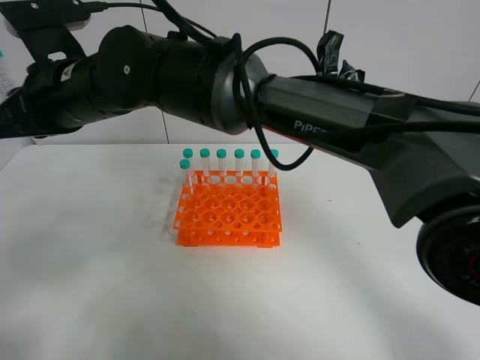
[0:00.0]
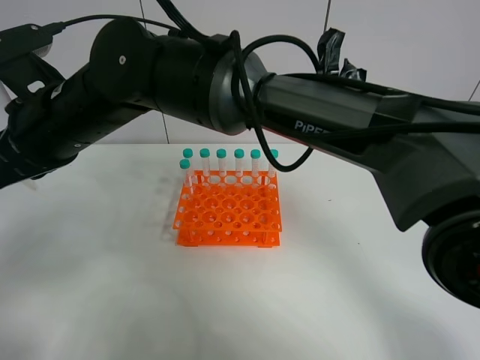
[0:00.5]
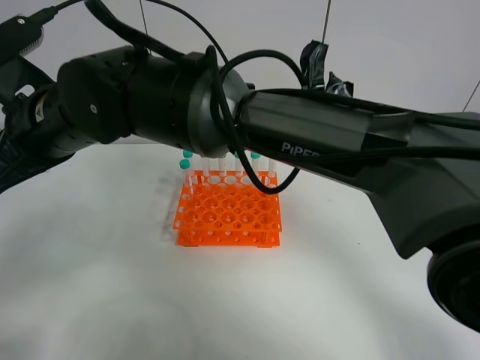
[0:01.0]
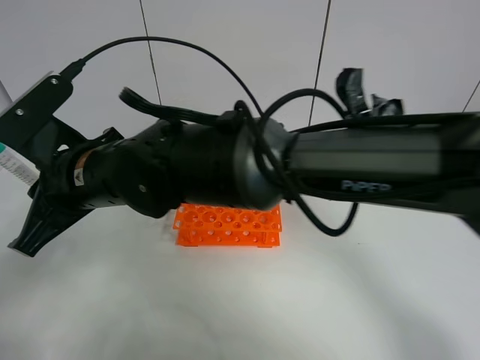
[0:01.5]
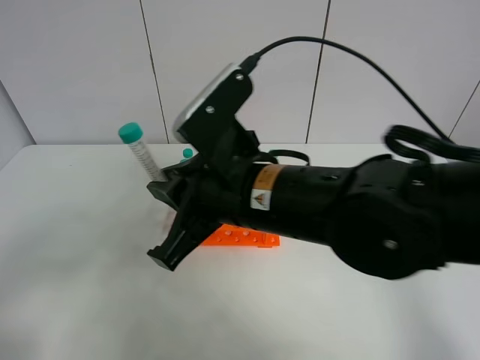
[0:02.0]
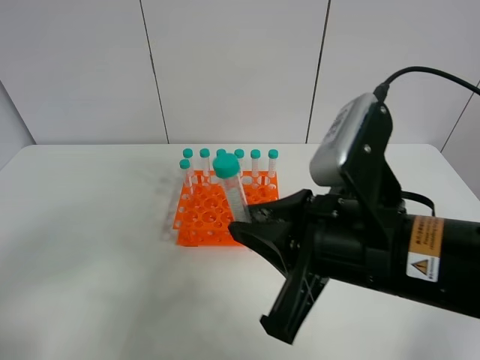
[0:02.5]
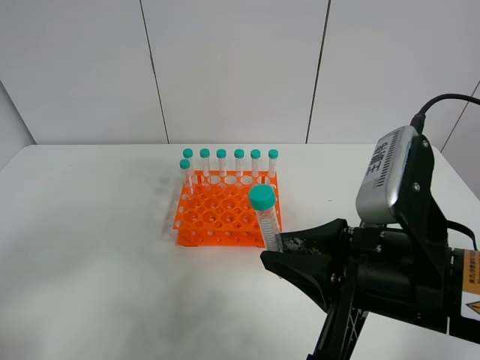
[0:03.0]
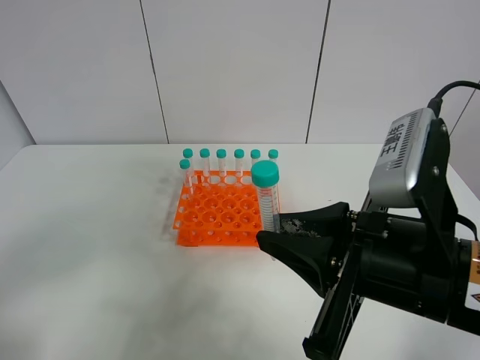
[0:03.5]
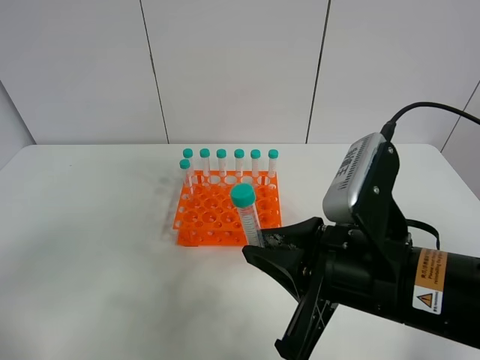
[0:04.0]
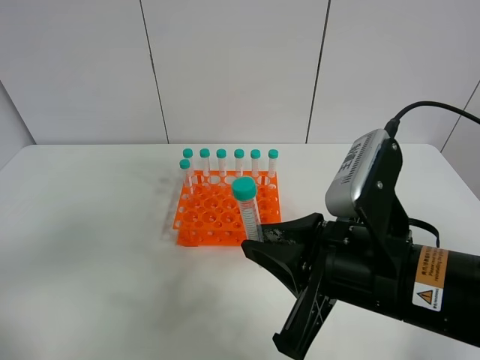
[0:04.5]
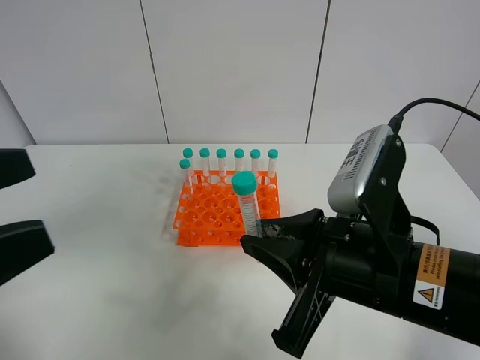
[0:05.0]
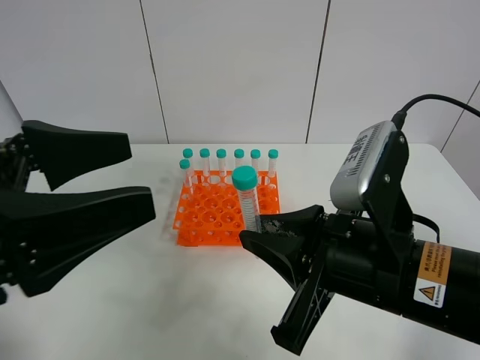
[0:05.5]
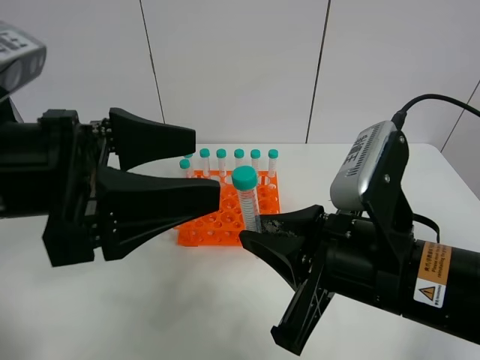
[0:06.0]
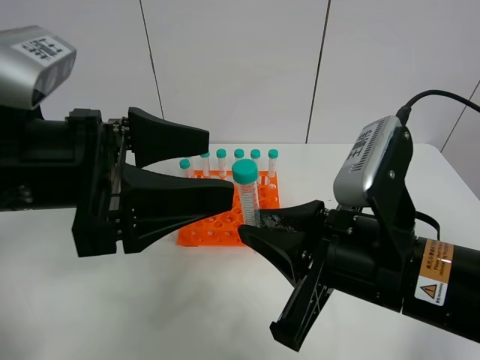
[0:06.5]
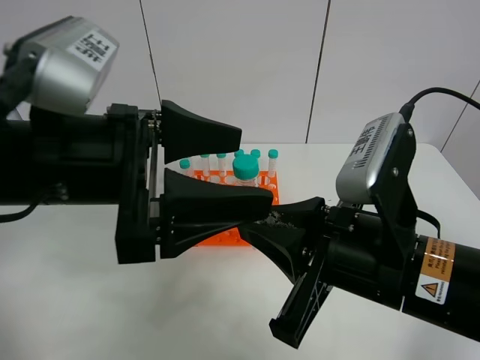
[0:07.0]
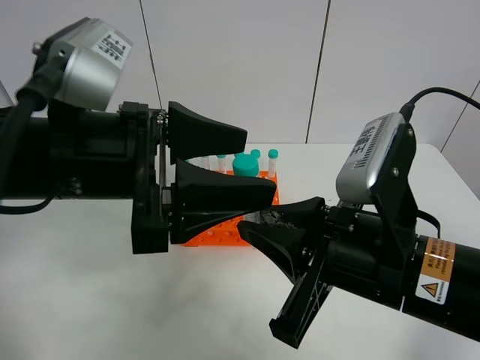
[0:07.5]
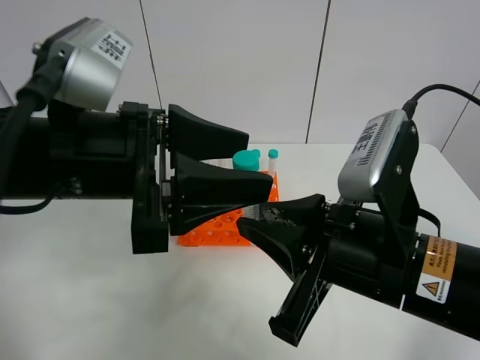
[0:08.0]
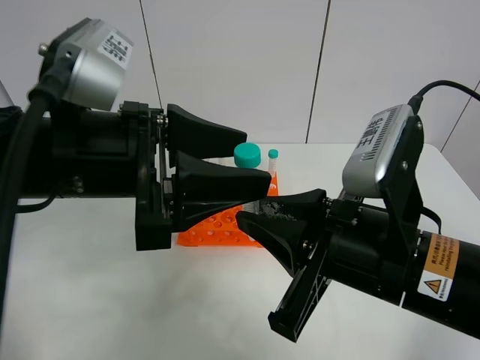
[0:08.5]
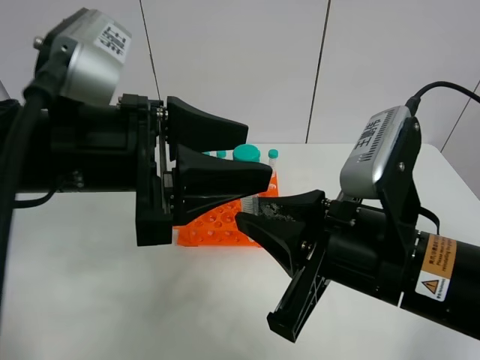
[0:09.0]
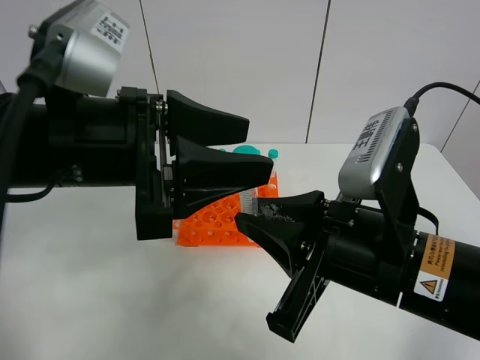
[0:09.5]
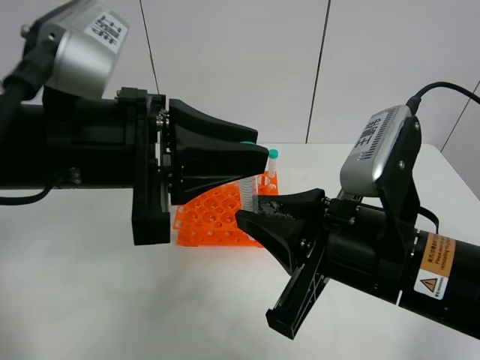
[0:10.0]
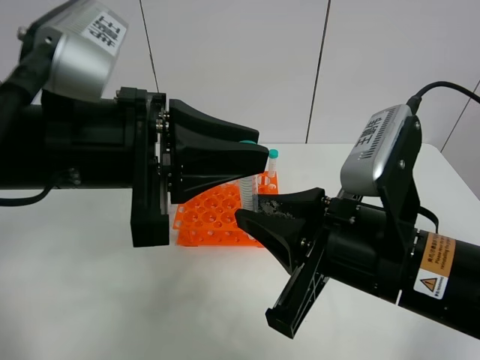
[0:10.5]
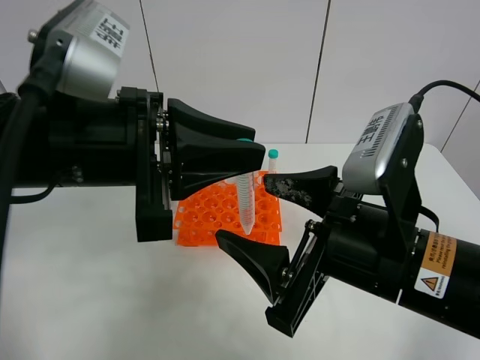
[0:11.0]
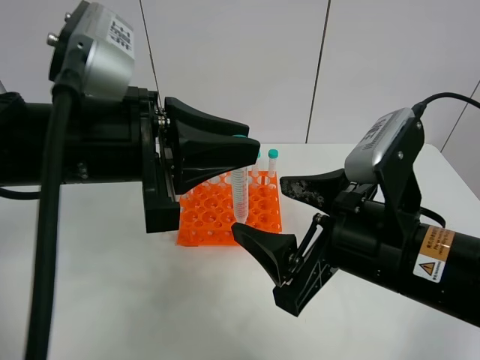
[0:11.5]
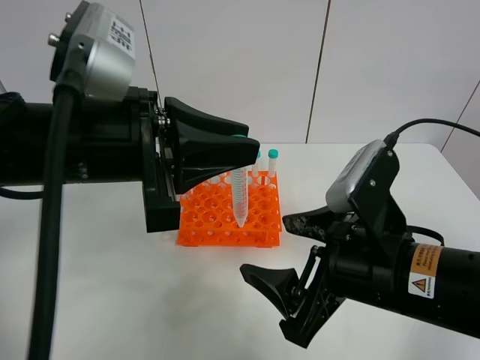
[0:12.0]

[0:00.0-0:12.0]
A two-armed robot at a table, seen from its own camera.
Task of the whole recording: Put the test tube on the table back onto the test tube rack.
0:00.0 to 0:02.0: The right gripper moves to the right and backward, roughly 20 cm.
0:02.0 to 0:04.0: The right gripper shifts roughly 10 cm to the right and backward.
0:04.0 to 0:06.0: The left gripper shifts approximately 20 cm forward and to the right.
0:08.0 to 0:10.0: The left gripper closes its fingers.
0:10.0 to 0:12.0: The right gripper opens its fingers.

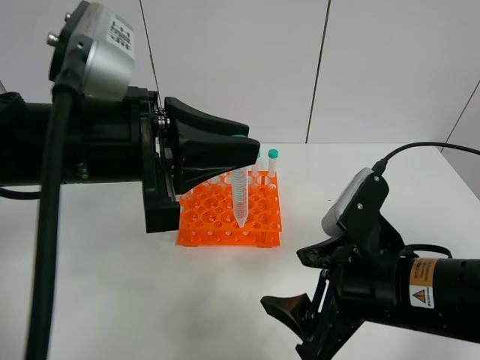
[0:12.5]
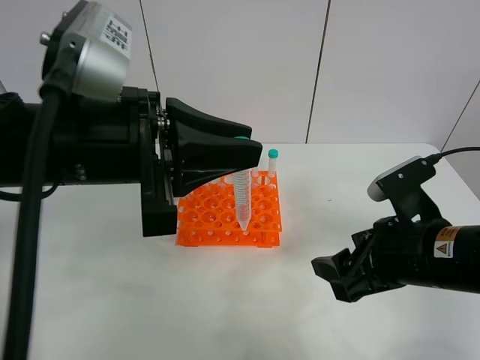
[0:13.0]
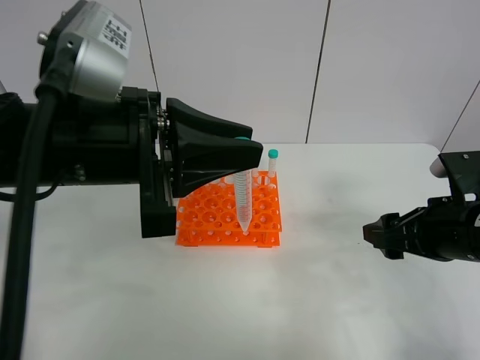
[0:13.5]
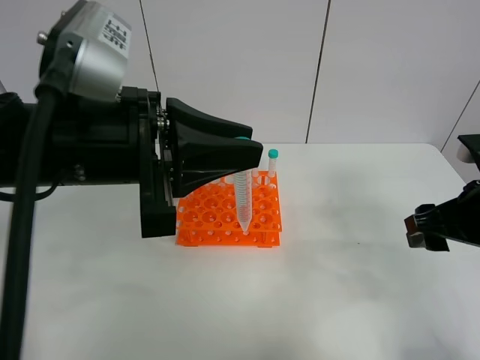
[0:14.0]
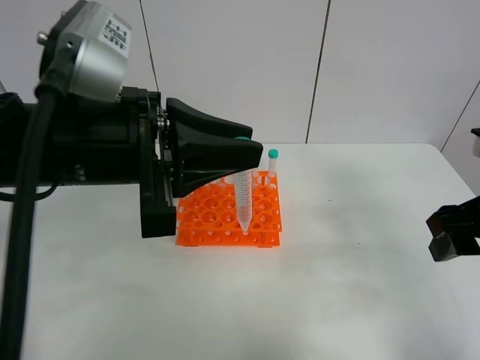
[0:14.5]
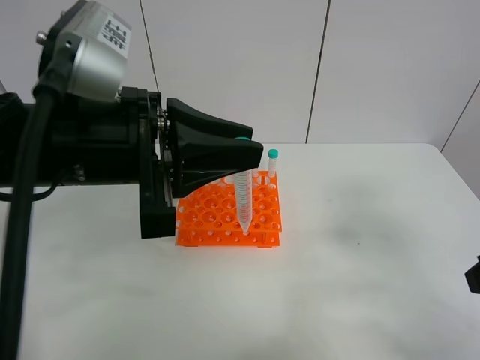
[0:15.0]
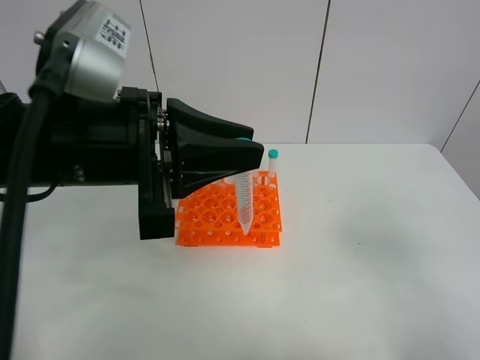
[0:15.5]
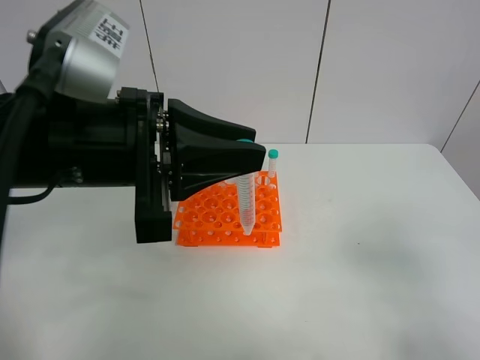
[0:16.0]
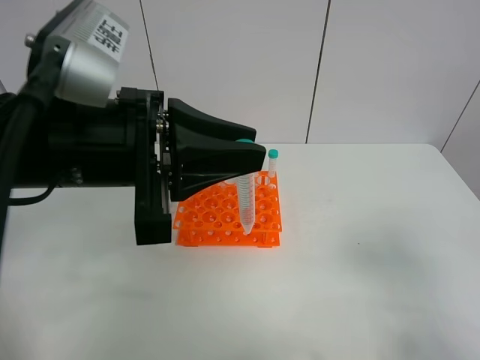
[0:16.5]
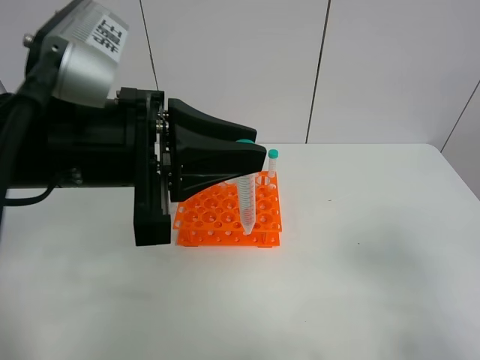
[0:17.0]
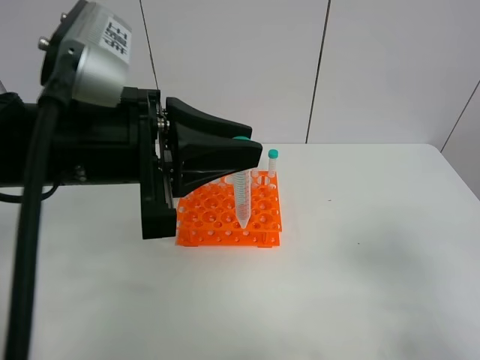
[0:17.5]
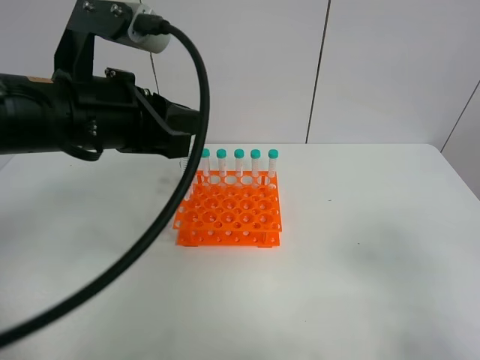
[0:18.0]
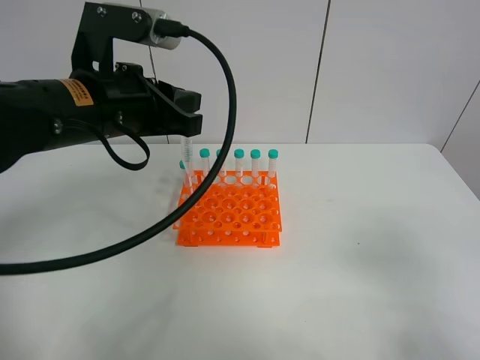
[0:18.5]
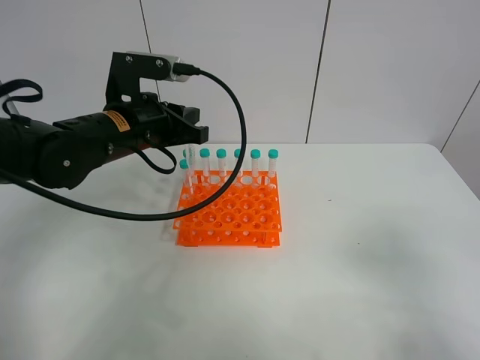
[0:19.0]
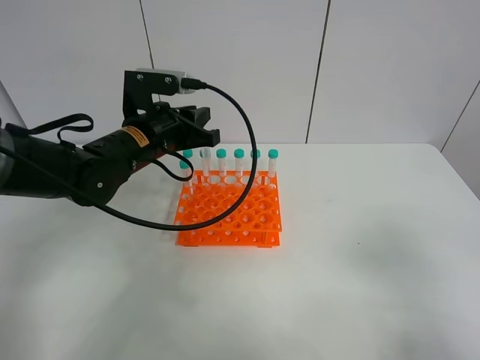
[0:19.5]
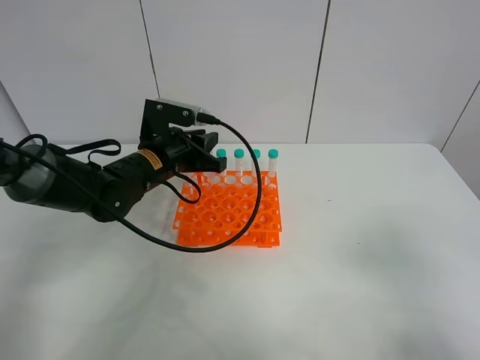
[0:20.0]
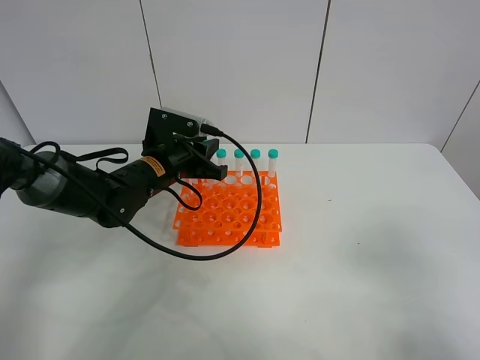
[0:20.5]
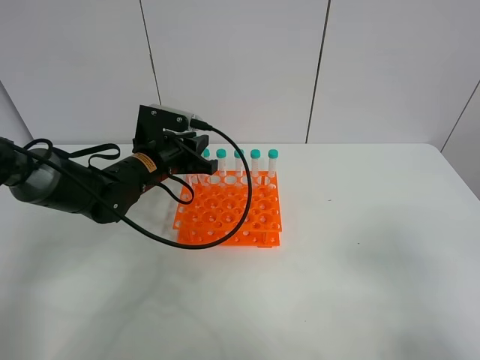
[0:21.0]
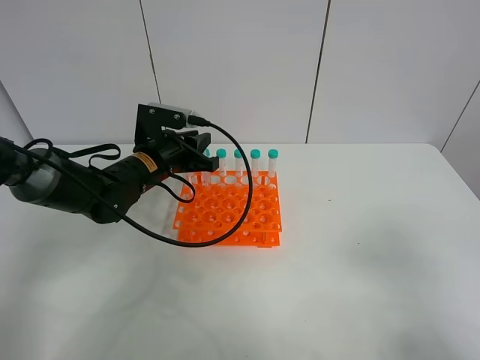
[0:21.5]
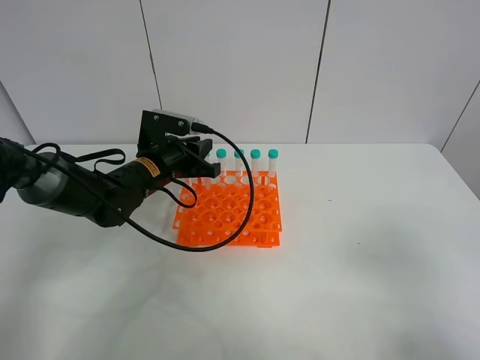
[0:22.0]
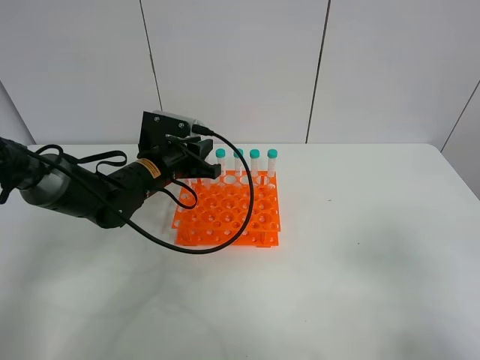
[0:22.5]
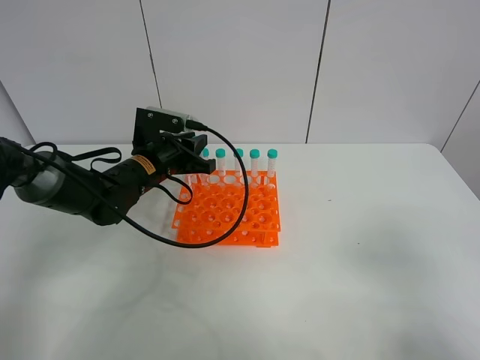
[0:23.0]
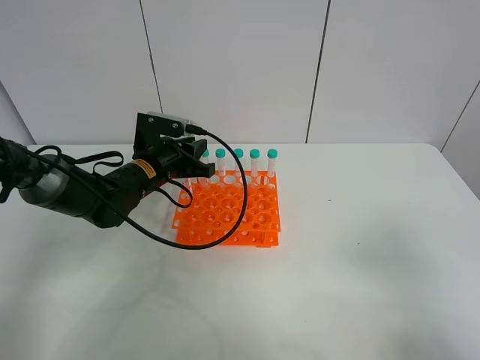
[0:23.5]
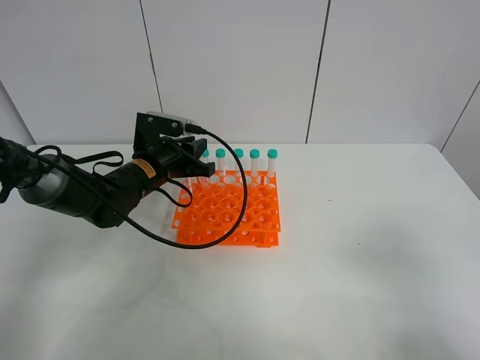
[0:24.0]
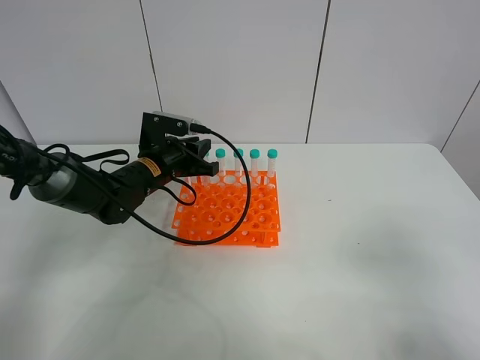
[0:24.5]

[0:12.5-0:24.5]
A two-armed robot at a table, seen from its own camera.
Task of the whole recording: Put the test tube on the table back onto the test tube rack.
0:12.5 to 0:14.5: The right gripper travels to the right, upward and forward by roughly 15 cm.
0:14.5 to 0:16.5: The right gripper shifts roughly 20 cm backward.
0:16.5 to 0:18.5: The left gripper moves forward, about 10 cm.
0:18.5 to 0:20.5: The left gripper shifts approximately 15 cm downward and forward.
0:20.5 to 0:24.5: The grippers make only small movements.

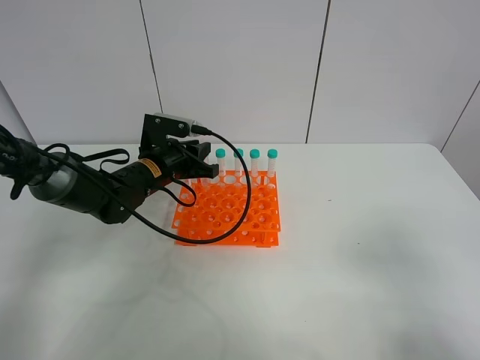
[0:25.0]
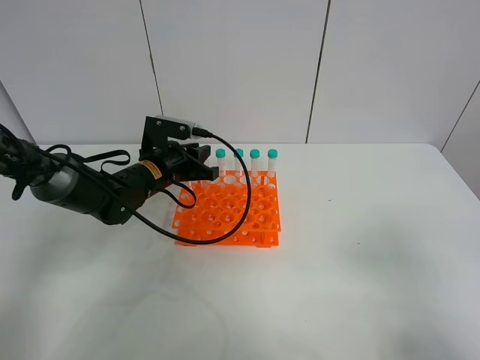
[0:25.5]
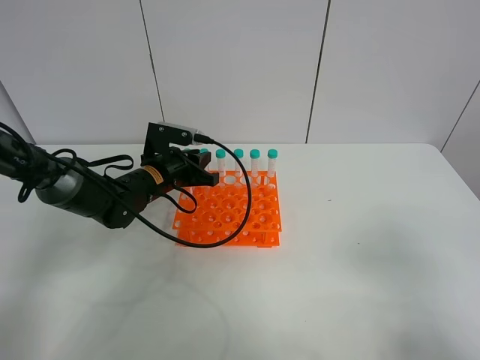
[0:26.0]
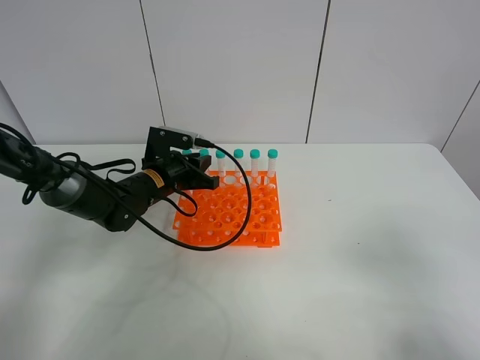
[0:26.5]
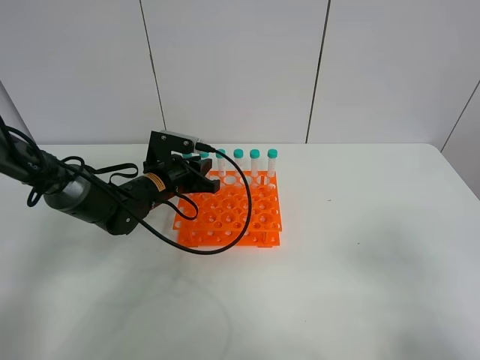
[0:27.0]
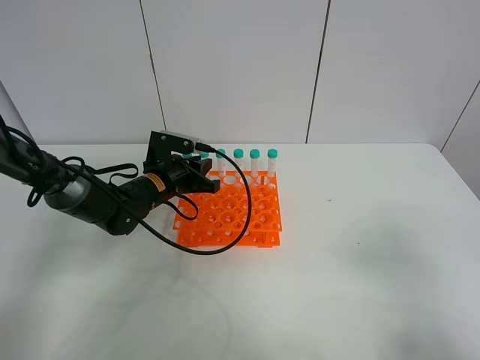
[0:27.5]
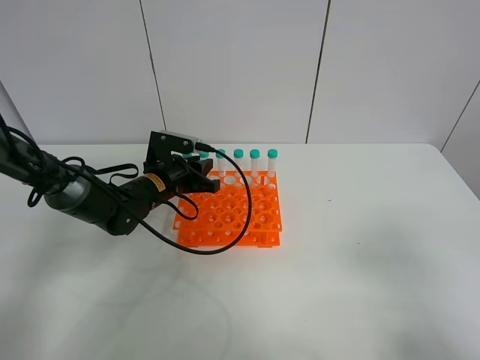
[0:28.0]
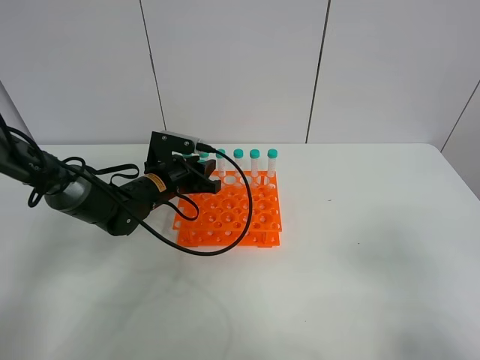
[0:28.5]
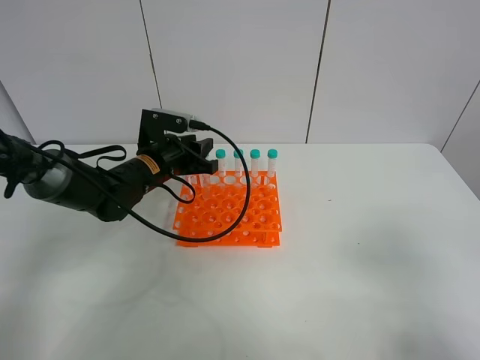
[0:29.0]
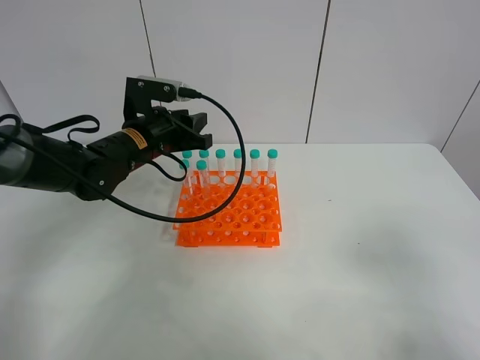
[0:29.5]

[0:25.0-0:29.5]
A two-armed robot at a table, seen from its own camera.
Task of the whole recording: Put the test tube on the table back onto the test tube rack.
0:25.0 to 0:27.0: The grippers make only small movements.
0:27.0 to 0:29.5: The left gripper shifts about 10 cm upward.
